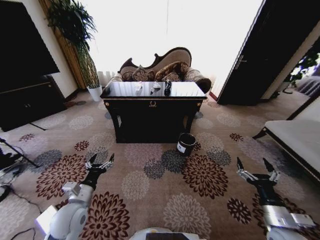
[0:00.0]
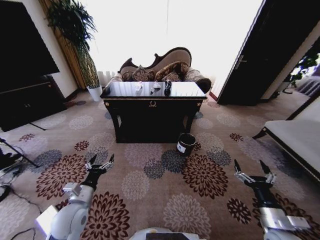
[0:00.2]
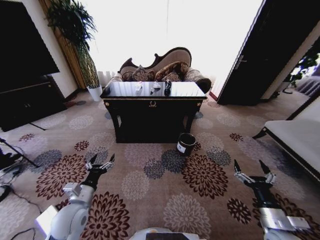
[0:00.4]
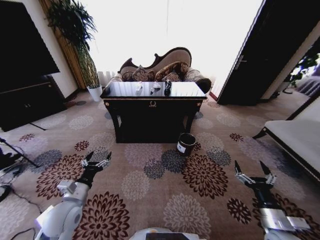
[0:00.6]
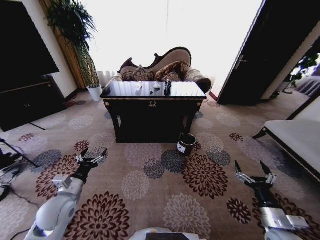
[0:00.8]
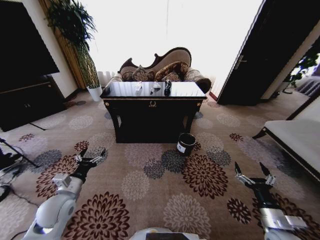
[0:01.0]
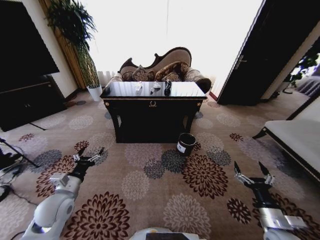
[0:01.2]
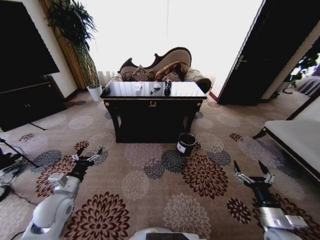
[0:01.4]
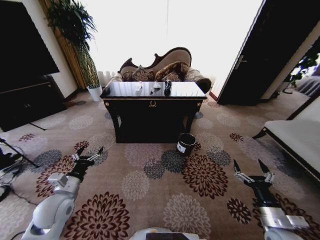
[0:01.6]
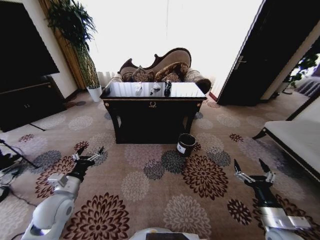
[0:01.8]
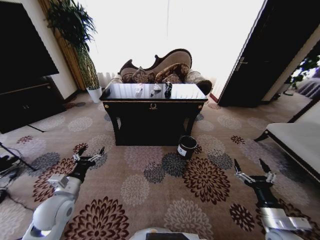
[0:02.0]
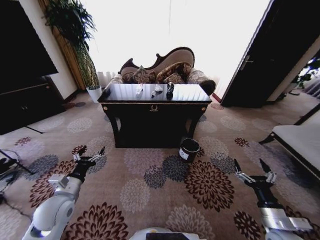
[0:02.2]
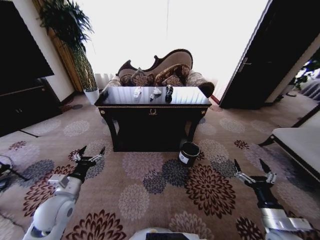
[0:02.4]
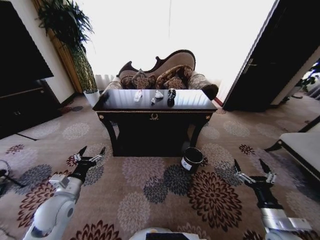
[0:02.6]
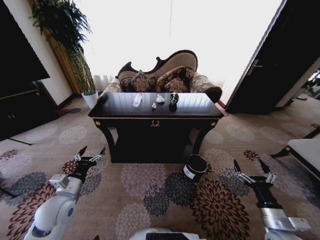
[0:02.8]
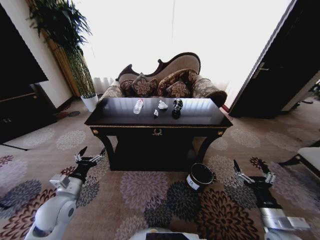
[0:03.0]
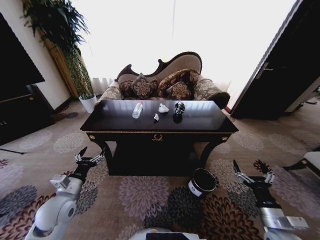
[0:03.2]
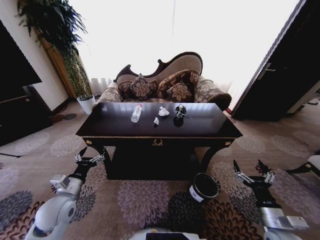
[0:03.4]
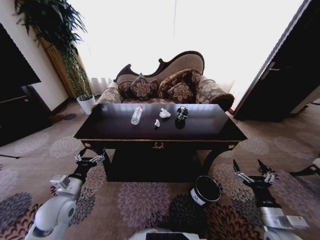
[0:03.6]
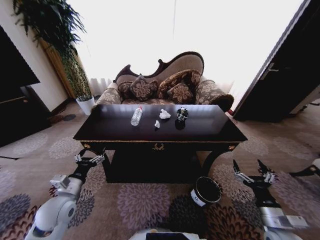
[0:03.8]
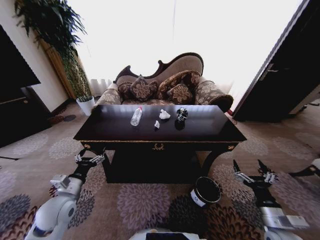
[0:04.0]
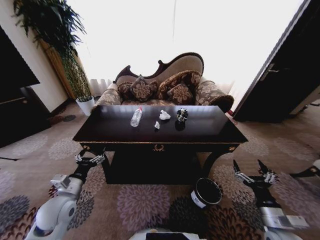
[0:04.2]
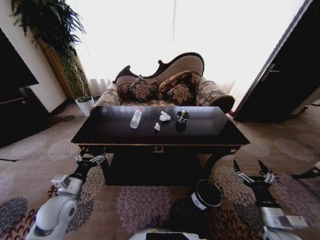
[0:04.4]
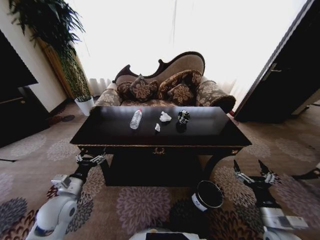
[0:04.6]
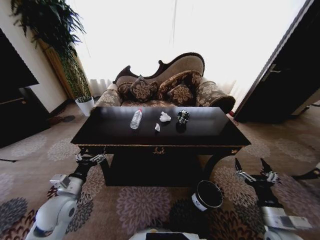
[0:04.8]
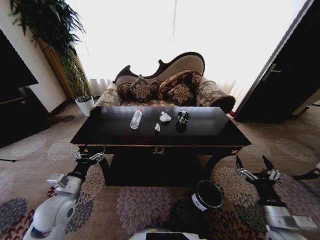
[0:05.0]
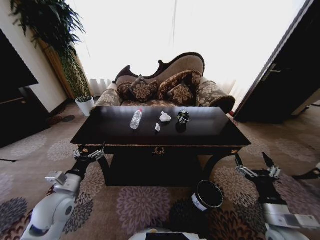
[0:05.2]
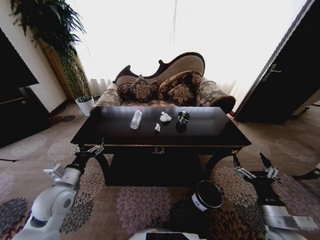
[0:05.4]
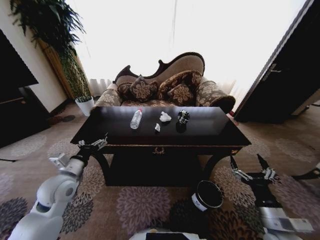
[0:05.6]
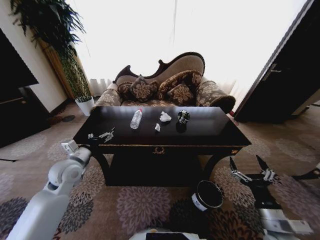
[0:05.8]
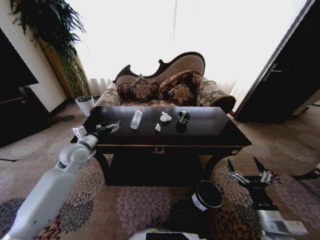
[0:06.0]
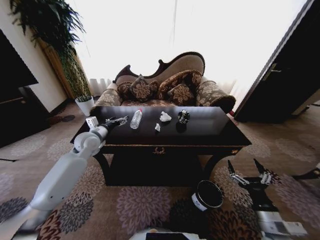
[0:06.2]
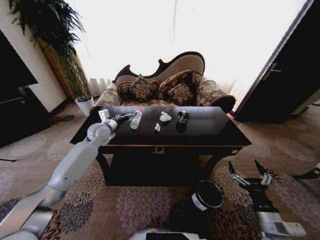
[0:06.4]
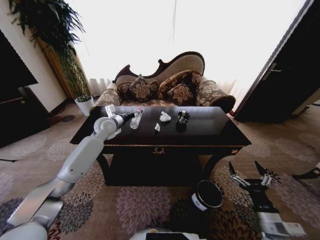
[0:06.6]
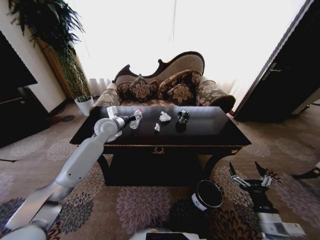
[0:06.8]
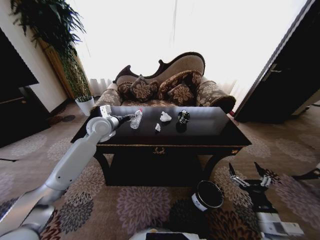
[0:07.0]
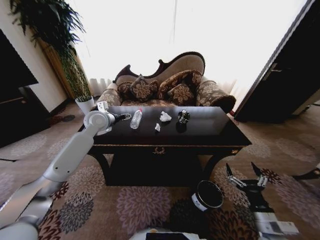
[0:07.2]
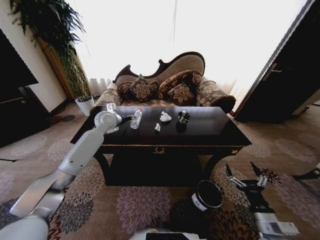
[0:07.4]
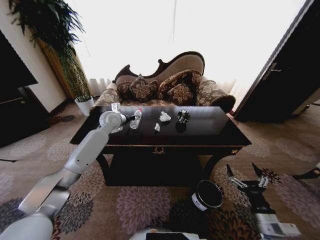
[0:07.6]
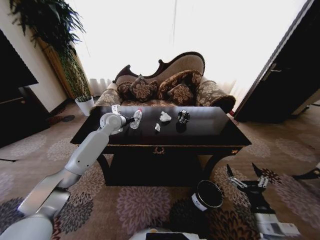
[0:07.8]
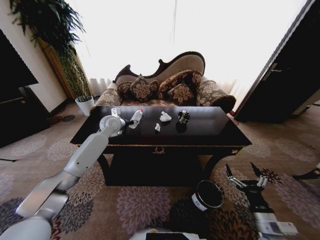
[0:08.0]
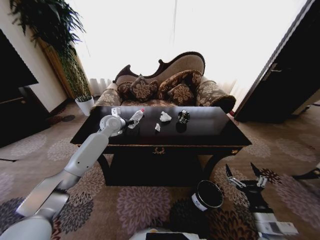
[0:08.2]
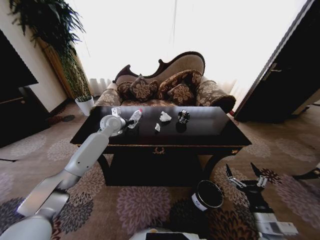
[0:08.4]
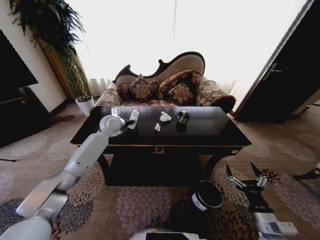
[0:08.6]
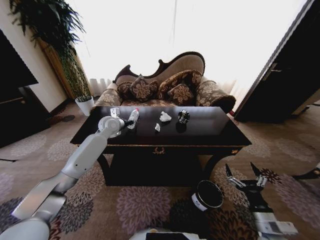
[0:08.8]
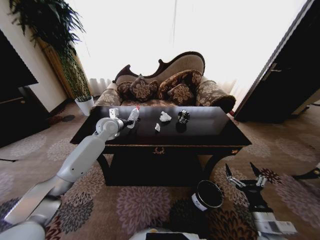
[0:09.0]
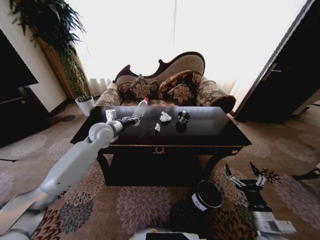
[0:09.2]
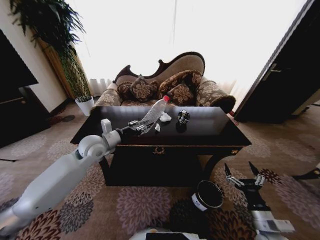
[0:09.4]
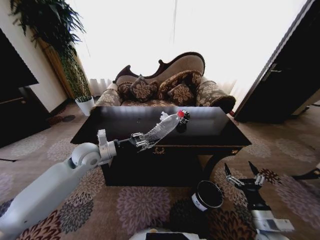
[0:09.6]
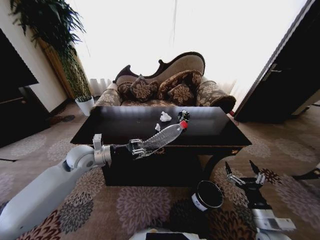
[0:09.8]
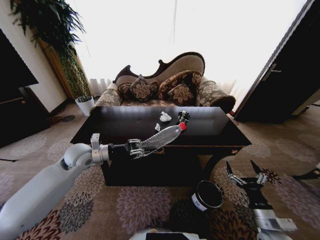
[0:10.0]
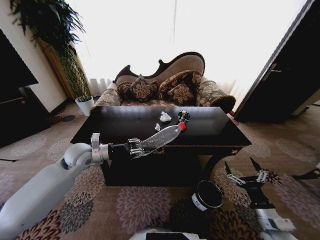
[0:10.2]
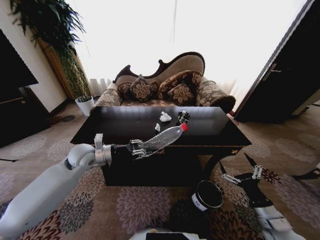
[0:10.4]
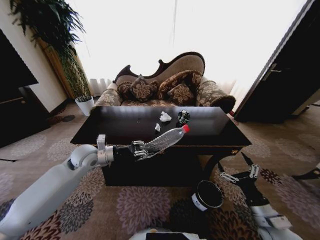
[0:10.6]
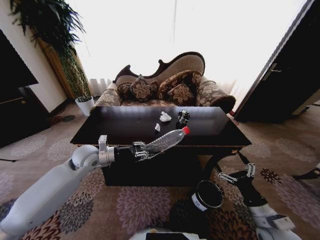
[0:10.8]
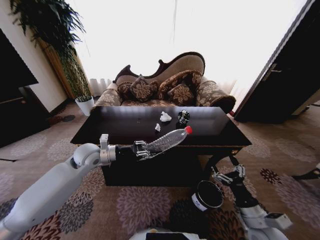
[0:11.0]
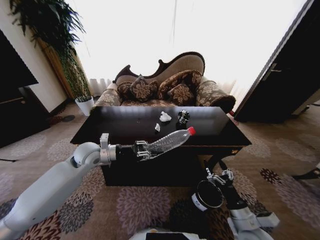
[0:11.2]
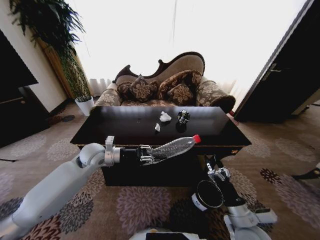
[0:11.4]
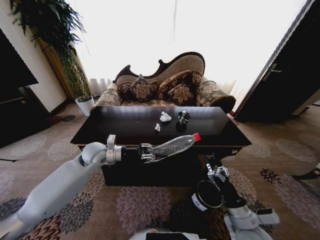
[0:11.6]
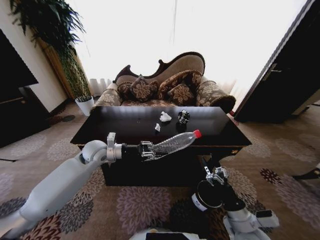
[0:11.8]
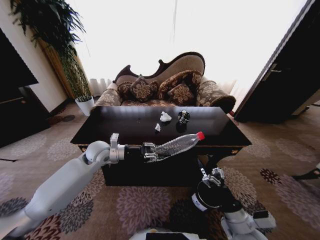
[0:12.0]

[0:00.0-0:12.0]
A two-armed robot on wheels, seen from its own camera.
Task of the whole recording: Move to the front of the table and place the trash on the table into the trash bin.
0:04.4 to 0:06.0: The left gripper moves forward and upward, some 20 cm.
0:06.0 to 0:07.6: The left gripper goes forward and backward, about 15 cm each way, reversing 2 times.
0:07.6 to 0:09.0: The left gripper closes.
0:09.0 to 0:10.4: The left gripper travels backward by approximately 15 cm.
0:10.4 to 0:12.0: The left gripper ends up approximately 5 cm from where it was, while the right gripper is displaced to the left by some 10 cm.

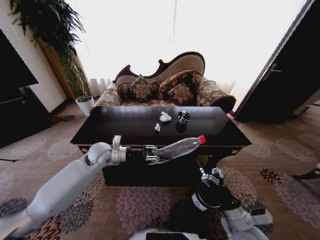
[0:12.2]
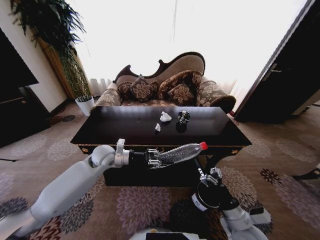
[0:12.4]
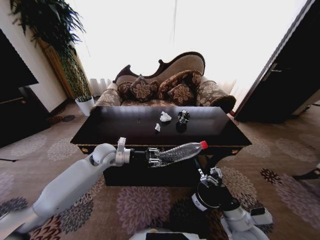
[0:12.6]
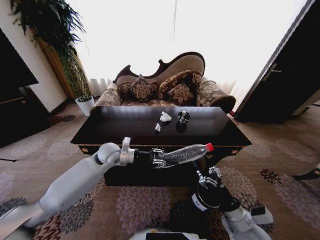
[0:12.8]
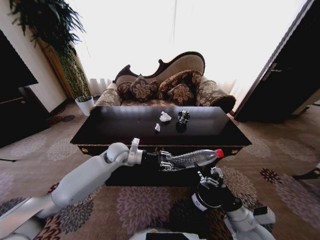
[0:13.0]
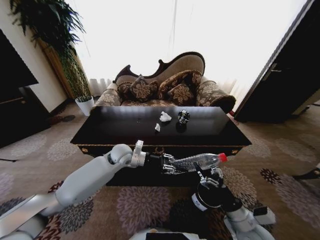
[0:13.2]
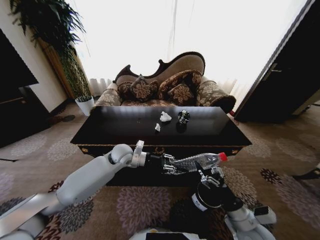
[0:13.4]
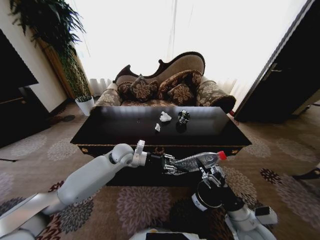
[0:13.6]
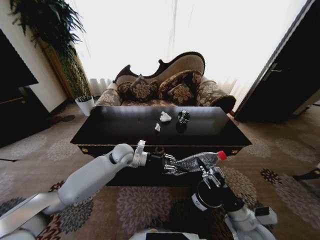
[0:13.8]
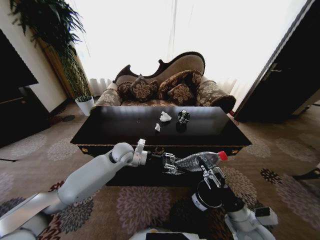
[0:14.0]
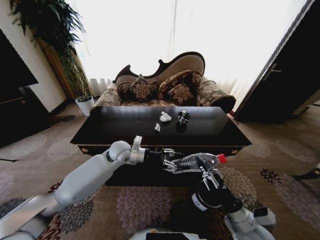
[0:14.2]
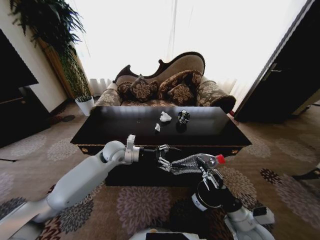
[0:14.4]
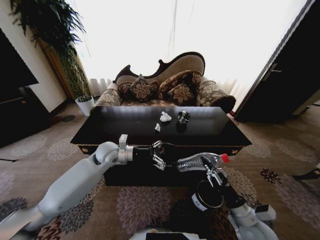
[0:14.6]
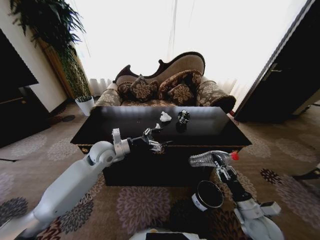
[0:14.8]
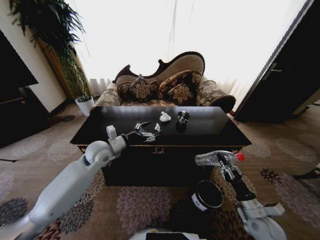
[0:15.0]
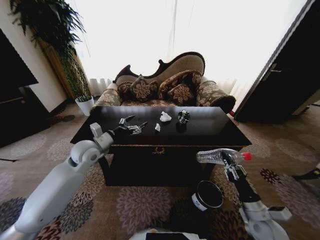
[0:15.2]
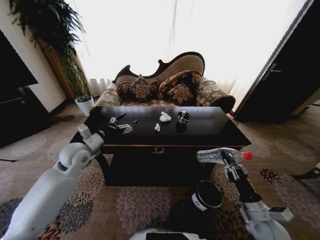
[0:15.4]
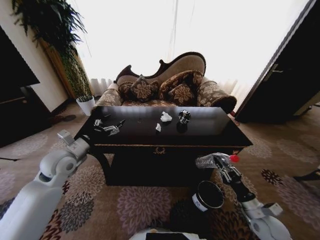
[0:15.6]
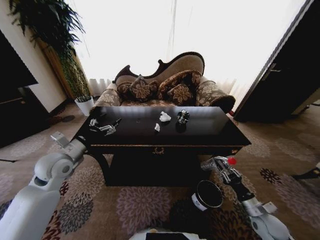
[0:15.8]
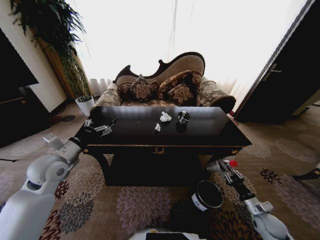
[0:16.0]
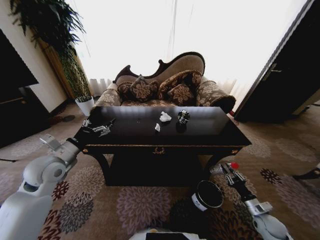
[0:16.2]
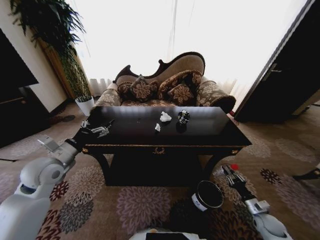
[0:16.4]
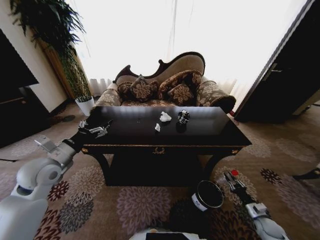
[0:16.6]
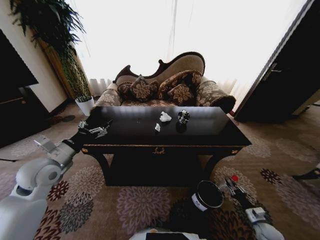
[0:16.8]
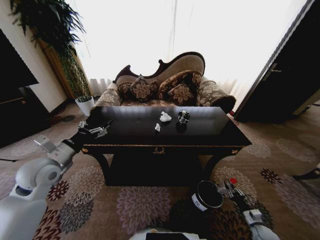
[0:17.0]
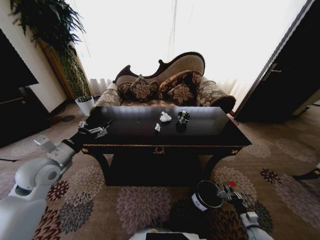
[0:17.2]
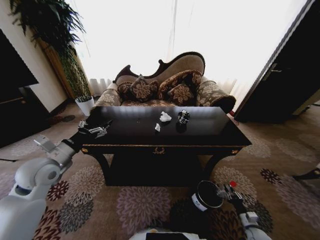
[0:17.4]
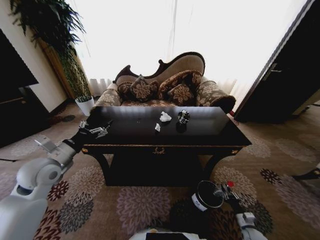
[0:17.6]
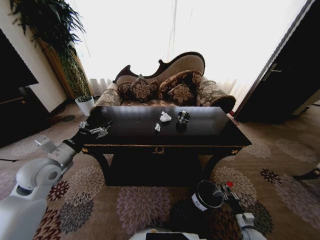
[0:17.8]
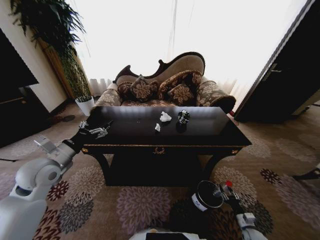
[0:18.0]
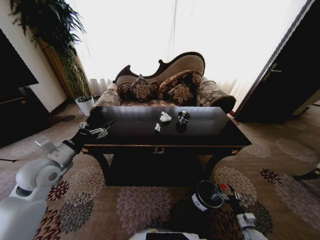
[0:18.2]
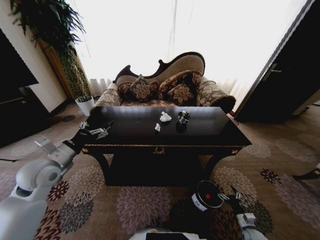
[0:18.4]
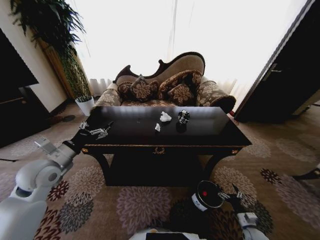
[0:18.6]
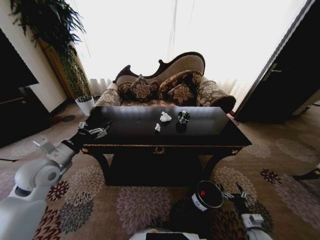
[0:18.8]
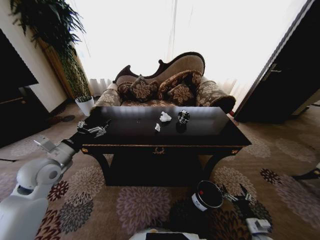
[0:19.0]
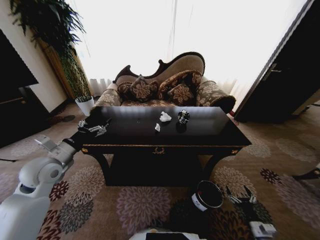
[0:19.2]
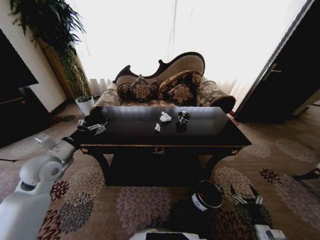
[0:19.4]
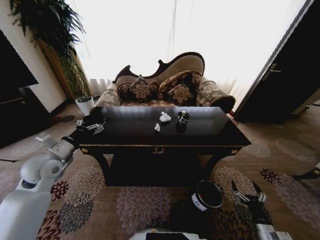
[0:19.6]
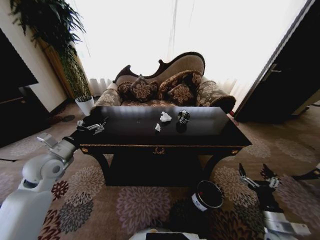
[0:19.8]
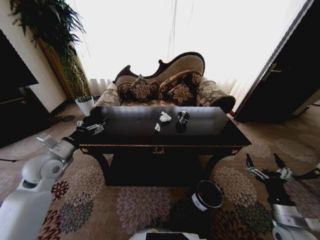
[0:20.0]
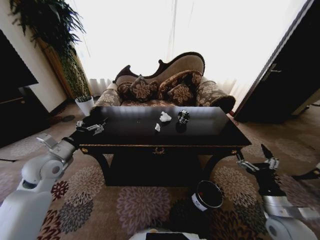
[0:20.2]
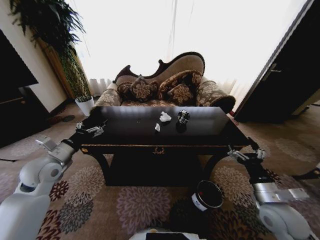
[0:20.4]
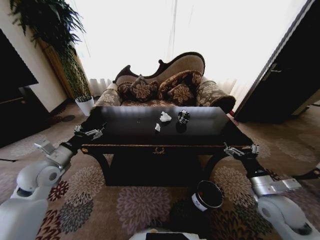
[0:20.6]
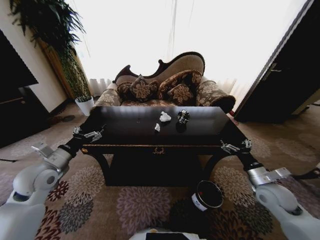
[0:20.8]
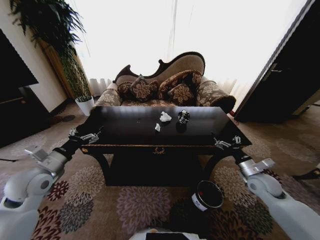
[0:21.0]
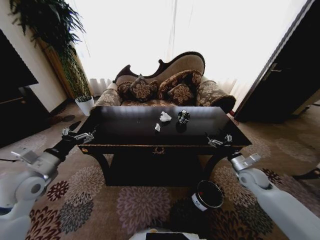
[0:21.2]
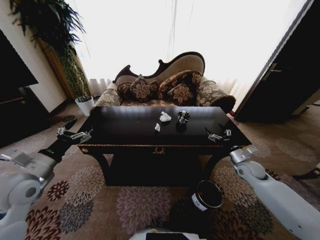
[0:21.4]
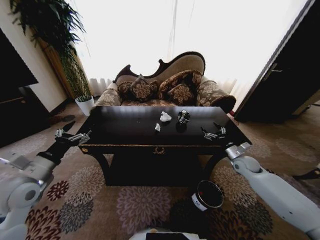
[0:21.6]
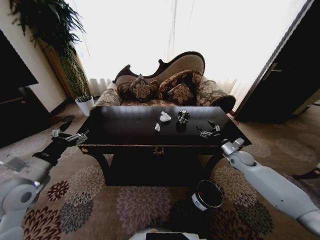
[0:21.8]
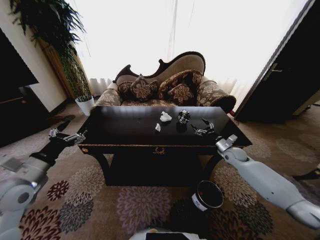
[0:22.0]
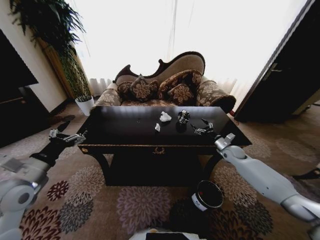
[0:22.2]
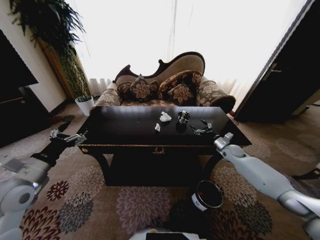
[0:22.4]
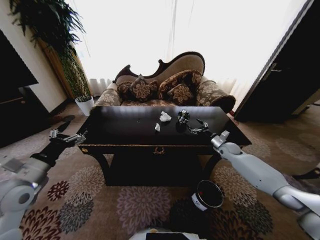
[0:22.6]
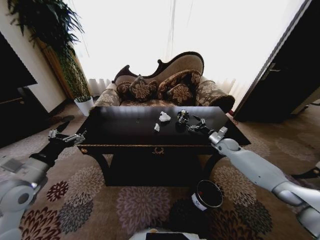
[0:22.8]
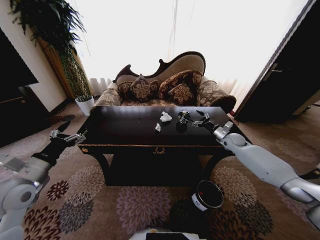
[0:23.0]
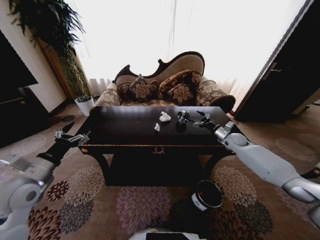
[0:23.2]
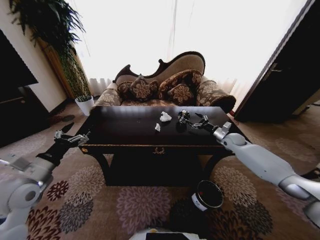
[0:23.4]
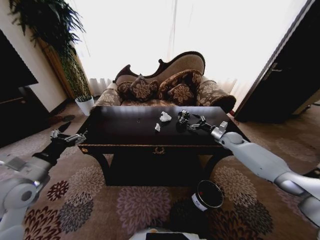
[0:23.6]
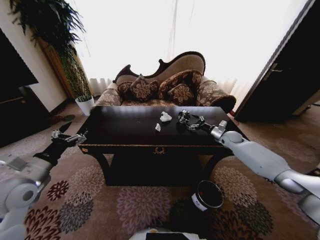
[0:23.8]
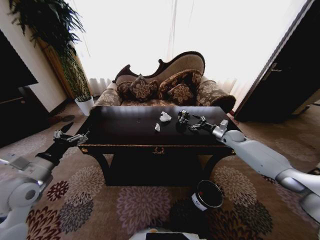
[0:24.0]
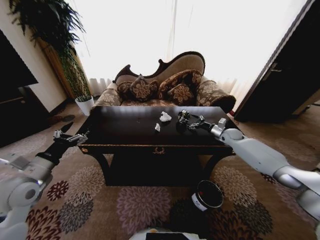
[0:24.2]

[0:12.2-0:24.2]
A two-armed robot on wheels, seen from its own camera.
Task of the whole recording: Move to the front of the table and place the trash on the table into the trash bin.
0:12.2 to 0:13.8: The left gripper moves to the right, some 10 cm; the right gripper closes its fingers.
0:13.8 to 0:15.2: The right gripper moves to the right, approximately 10 cm, while the left gripper goes some 15 cm to the left and upward, and opens its fingers.
0:15.2 to 0:16.6: The right gripper heads downward and to the right, covering some 20 cm; the left gripper travels to the left and backward by approximately 15 cm.
0:16.6 to 0:18.2: The right gripper goes approximately 10 cm downward, and opens.
0:18.2 to 0:19.8: The right gripper travels upward by about 20 cm.
0:19.8 to 0:21.2: The right gripper heads forward, covering approximately 20 cm; the left gripper is displaced backward by roughly 5 cm.
0:21.2 to 0:22.6: The right gripper moves forward, approximately 15 cm.
0:22.6 to 0:24.2: The right gripper moves upward and forward, approximately 10 cm.
